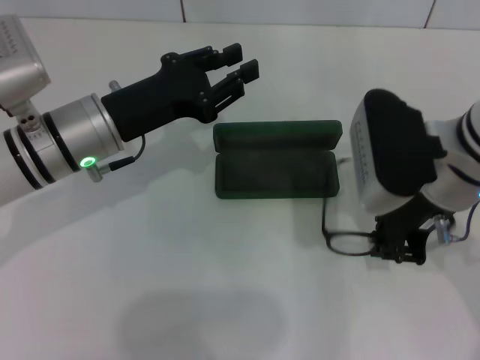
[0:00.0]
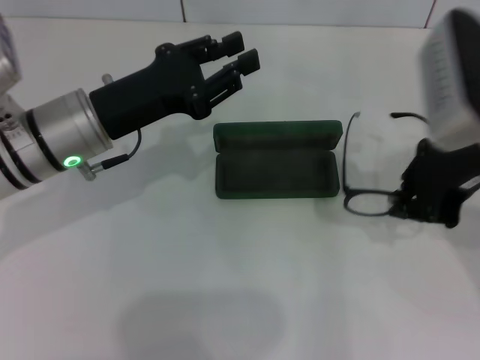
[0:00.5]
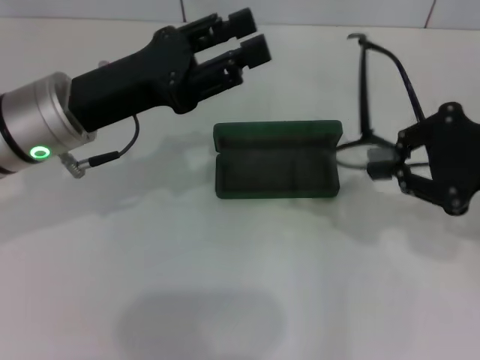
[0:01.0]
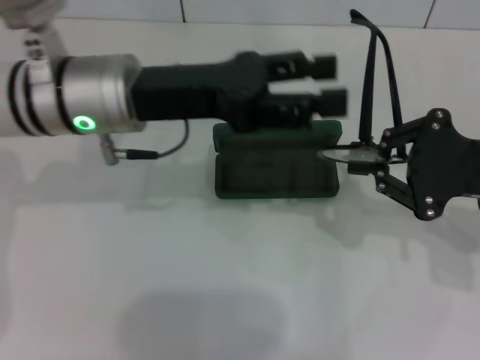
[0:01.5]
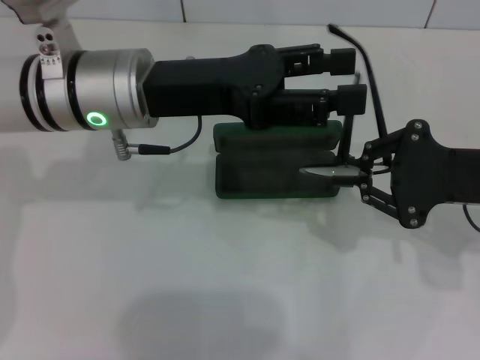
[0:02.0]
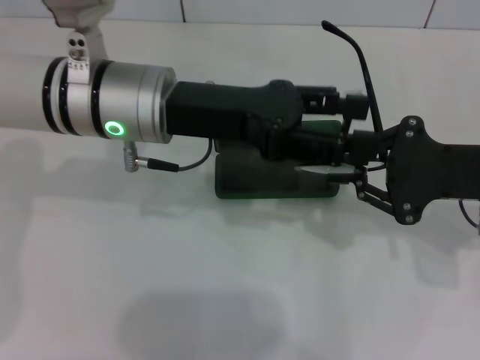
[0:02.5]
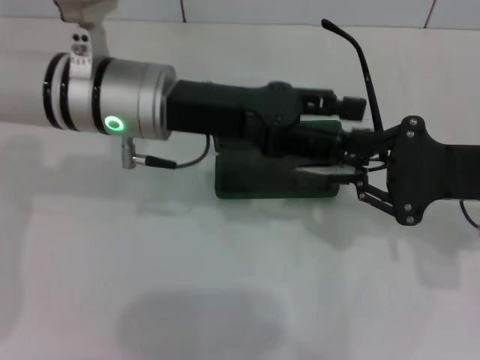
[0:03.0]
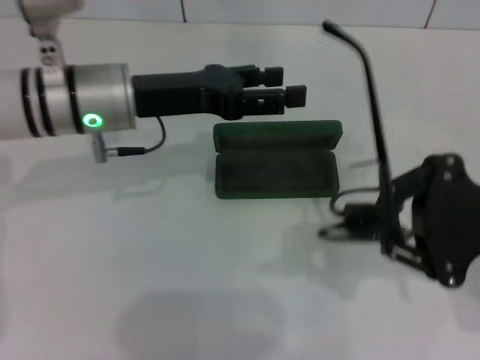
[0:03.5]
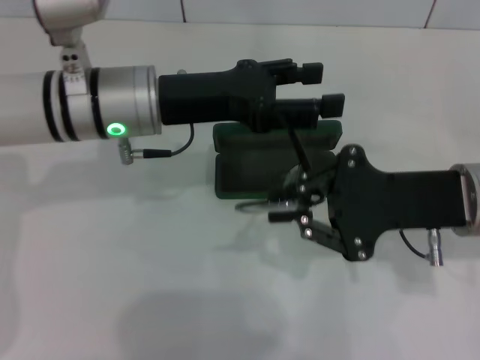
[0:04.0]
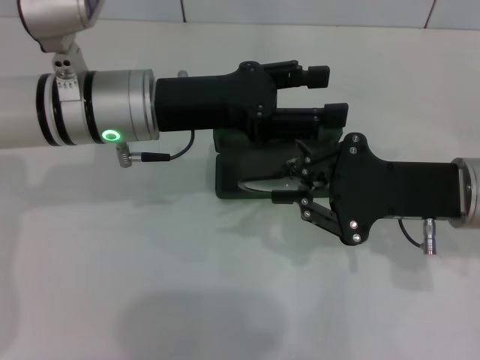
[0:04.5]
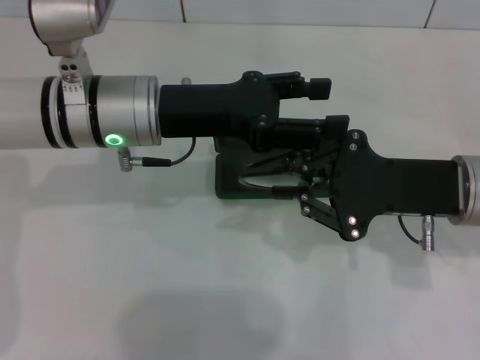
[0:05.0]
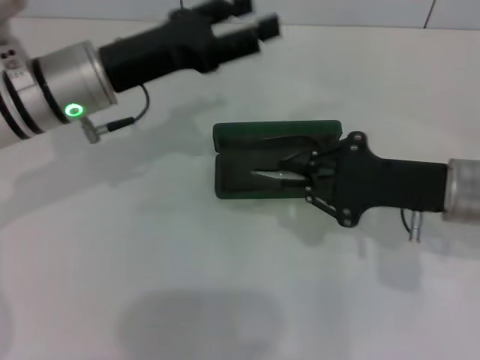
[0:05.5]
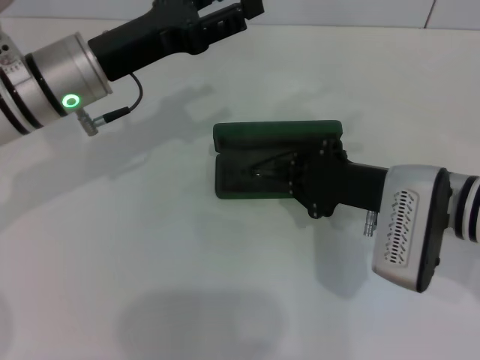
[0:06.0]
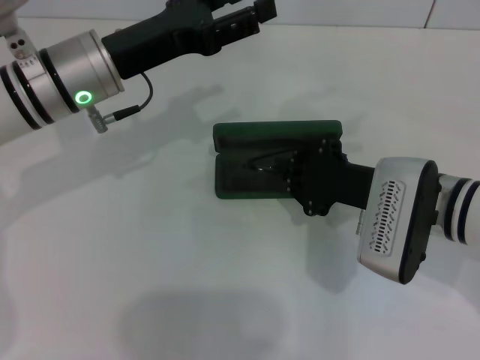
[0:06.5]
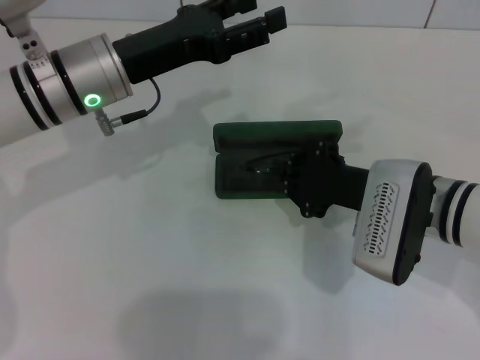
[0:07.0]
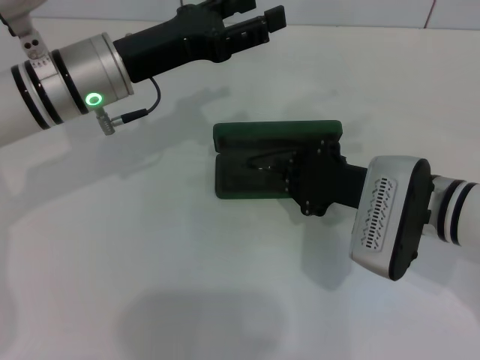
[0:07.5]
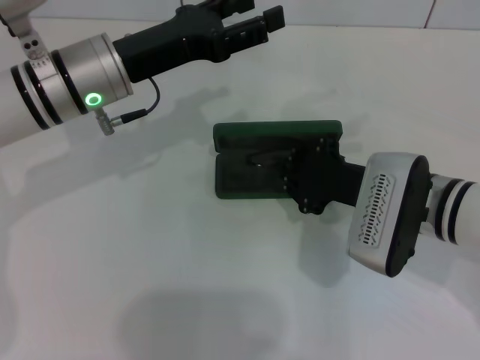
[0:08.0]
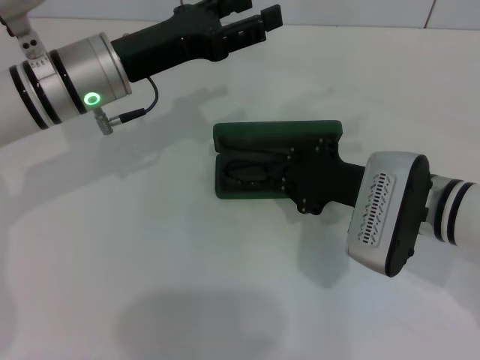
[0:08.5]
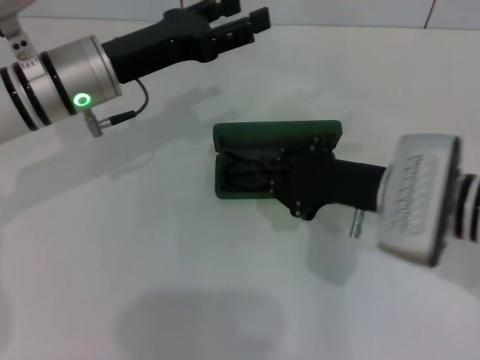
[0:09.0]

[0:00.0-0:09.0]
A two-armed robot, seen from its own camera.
Step, 0:00.5 to 0:05.0: Fold the frame with your left hand.
Step, 0:05.5 to 0:08.5: Put the glasses into the case with your right hand.
0:00.0 to 0:02.0: The left gripper goes roughly 5 cm upward, and opens its fingers; the right gripper goes roughly 10 cm to the right.
0:02.0 to 0:04.5: The right gripper goes approximately 5 cm to the left.
0:04.5 to 0:07.0: The right gripper ends up roughly 5 cm from where it was.
0:07.0 to 0:09.0: There are only small adjustments of the grippers.

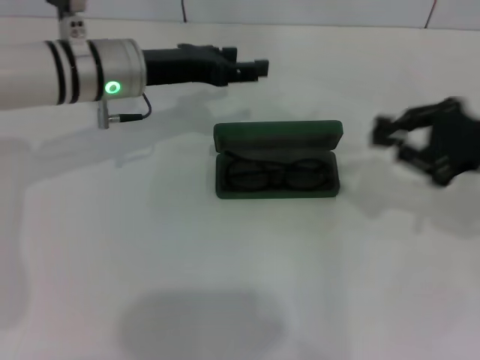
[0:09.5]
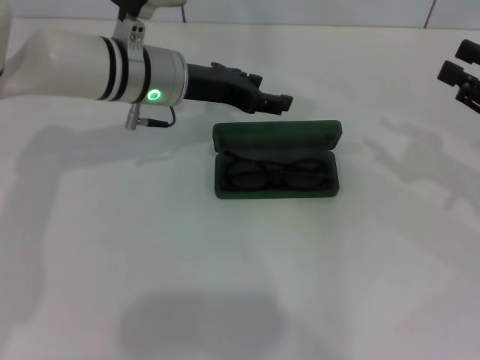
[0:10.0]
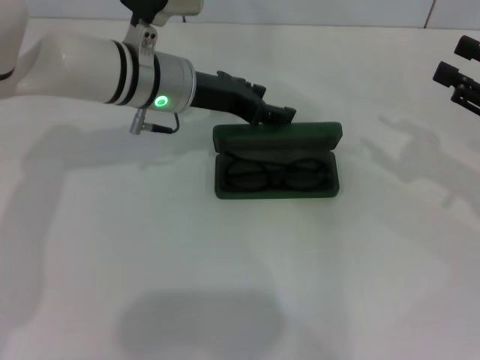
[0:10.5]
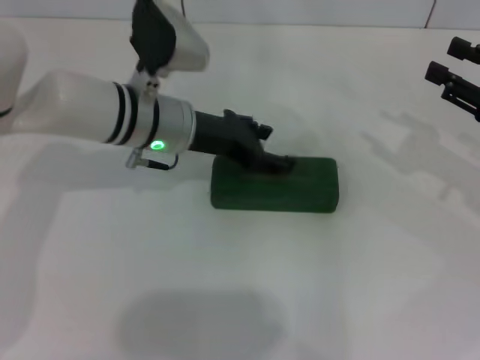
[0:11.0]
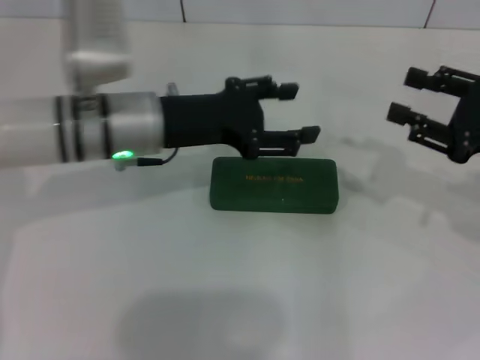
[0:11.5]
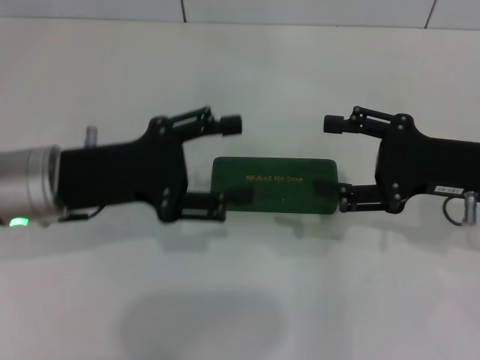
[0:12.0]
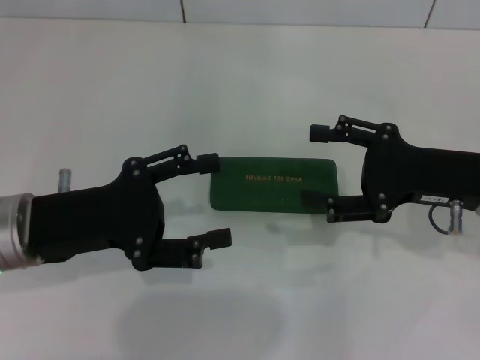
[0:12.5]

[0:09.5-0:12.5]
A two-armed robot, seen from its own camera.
Step, 0:09.5 to 0:11.0: Close the glasses case with your left hand.
0:09.5 to 0:11.0: The right gripper opens up. Meanwhile the left gripper ends up roughly 5 cm from where it was.
0:11.0 to 0:12.5: The left gripper travels backward and to the left by roughly 20 cm. The right gripper goes about 10 cm to the left.

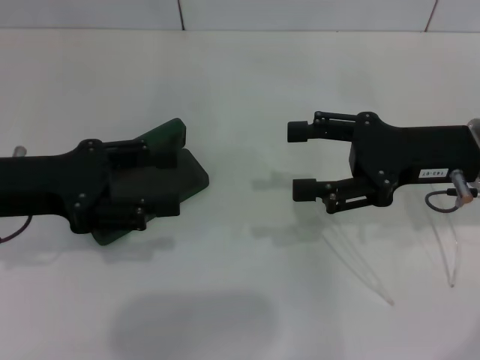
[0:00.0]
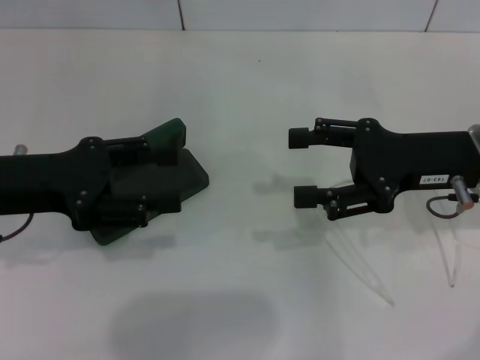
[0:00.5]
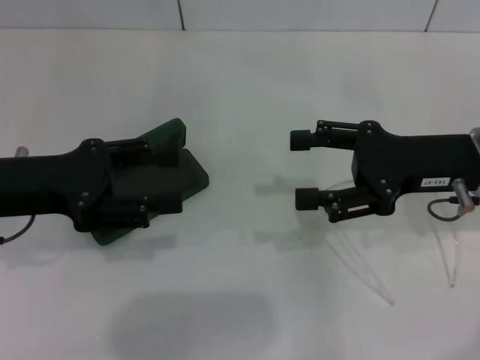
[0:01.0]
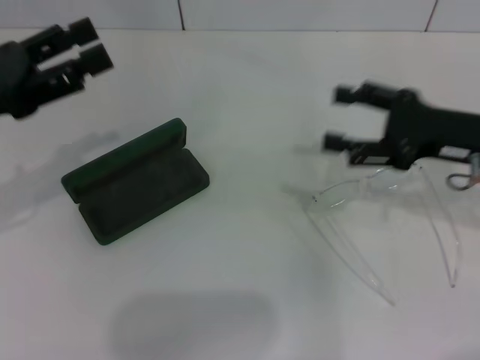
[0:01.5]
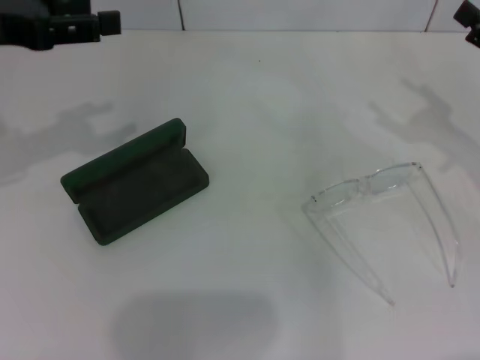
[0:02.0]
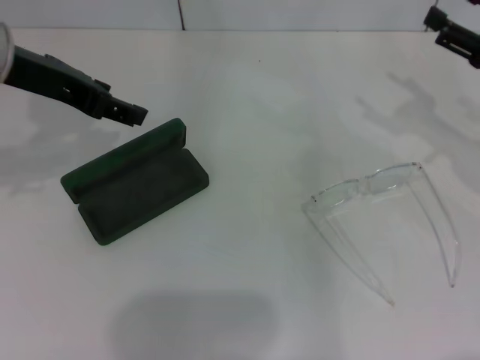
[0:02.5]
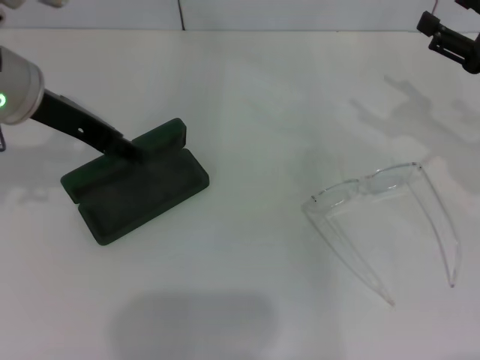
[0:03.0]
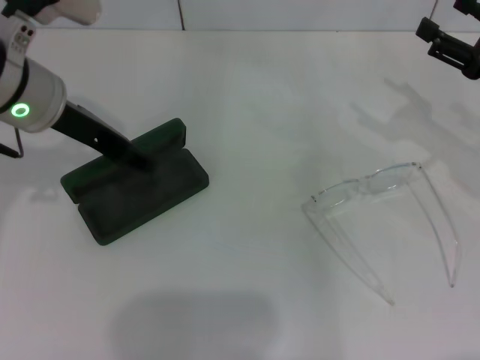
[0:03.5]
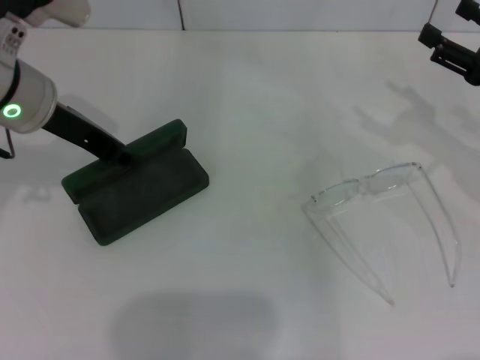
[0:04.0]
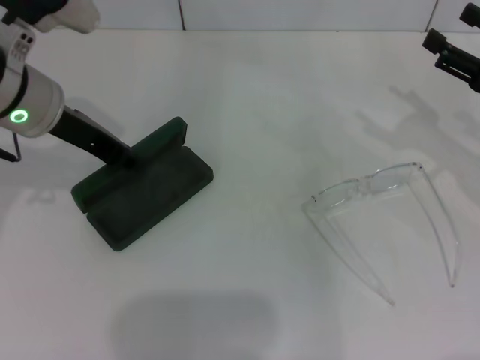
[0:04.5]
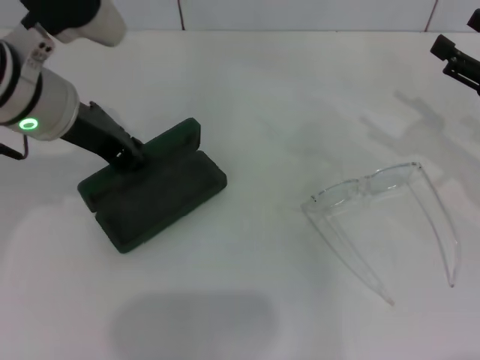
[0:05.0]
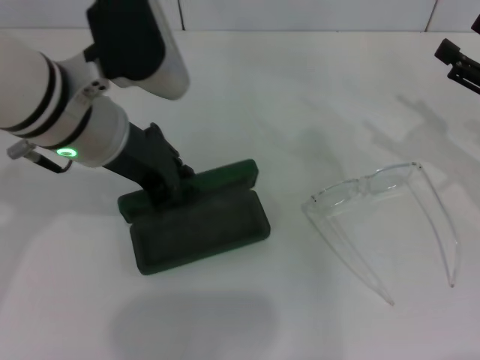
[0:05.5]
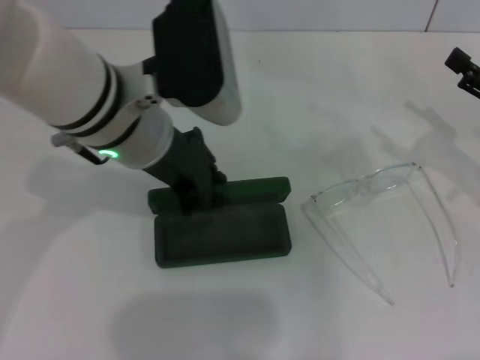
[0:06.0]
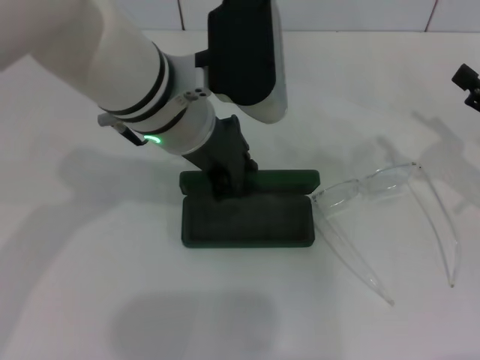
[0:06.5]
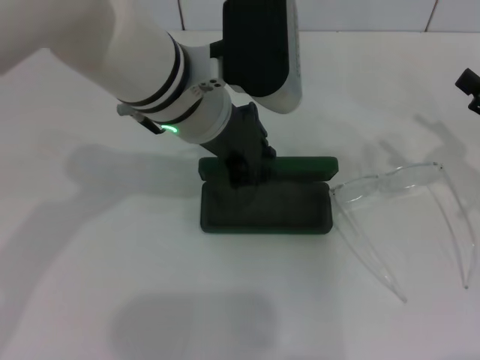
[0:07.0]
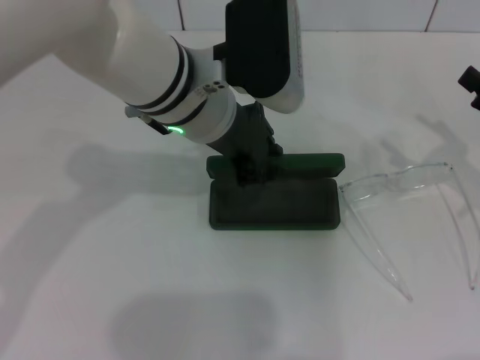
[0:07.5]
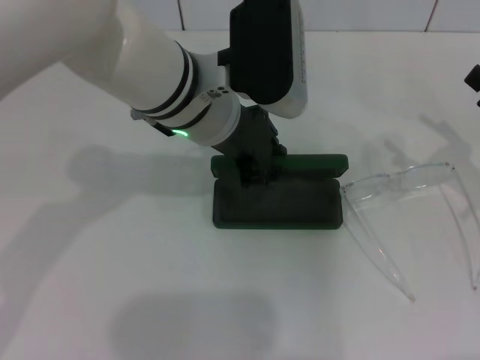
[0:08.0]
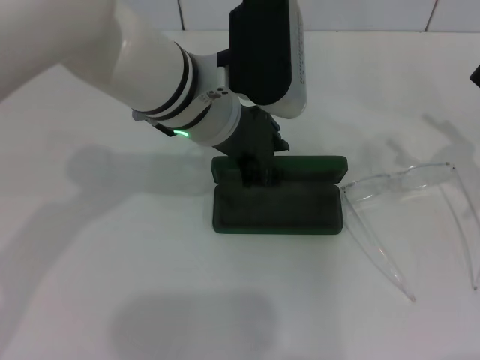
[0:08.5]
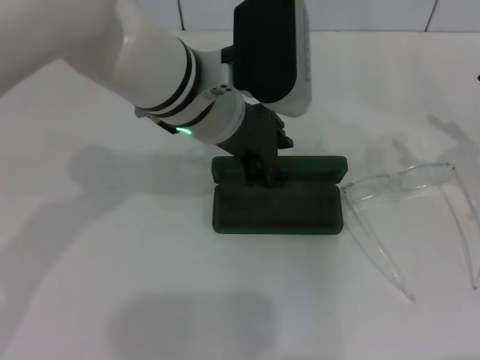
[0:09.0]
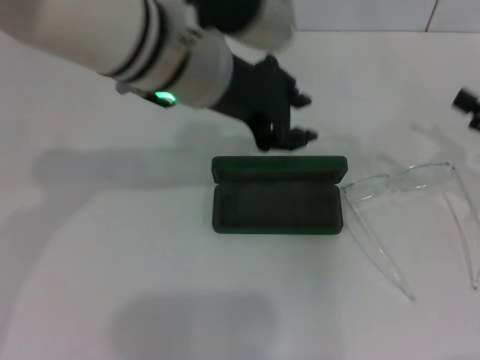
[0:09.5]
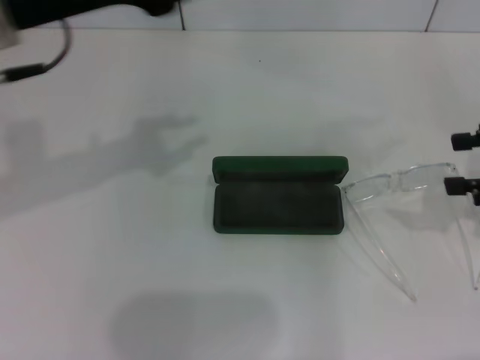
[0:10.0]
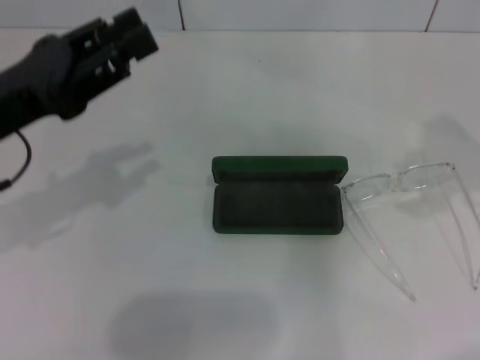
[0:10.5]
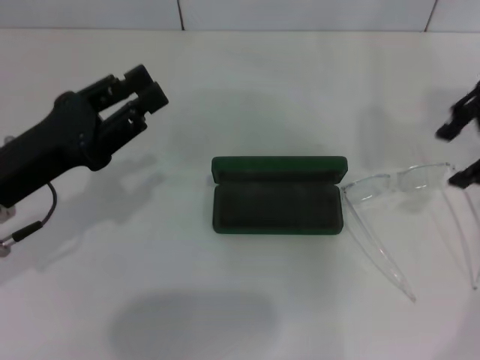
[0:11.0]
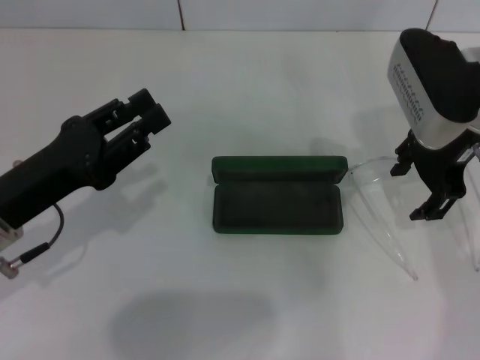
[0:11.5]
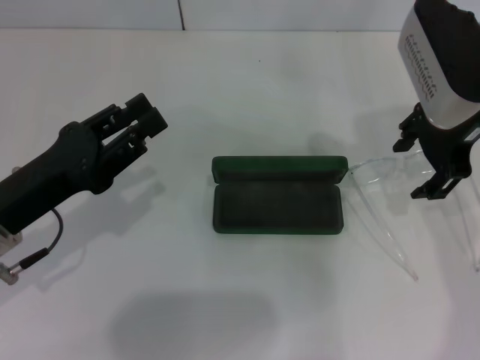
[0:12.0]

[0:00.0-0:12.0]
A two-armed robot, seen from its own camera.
Step, 0:00.0 to 0:04.0: Grab the glasses case with your left hand.
Step, 0:04.5 to 0:09.0: Place the glasses case in the center of the table with your left hand.
0:00.0 to 0:02.0: The left gripper is displaced upward and forward by roughly 10 cm. Meanwhile the right gripper is displaced to the right by some 10 cm.
0:02.0 to 0:04.0: The left gripper goes roughly 10 cm to the right and downward.
0:04.0 to 0:06.0: The left gripper shifts approximately 10 cm to the right, and closes up.
0:06.0 to 0:08.0: The left gripper goes about 5 cm to the right.
0:08.0 to 0:10.0: The left gripper moves to the left and upward, about 15 cm. Meanwhile the right gripper heads upward, covering some 5 cm.
0:10.0 to 0:12.0: The left gripper travels downward by some 20 cm. The right gripper heads to the left and forward, covering about 20 cm.

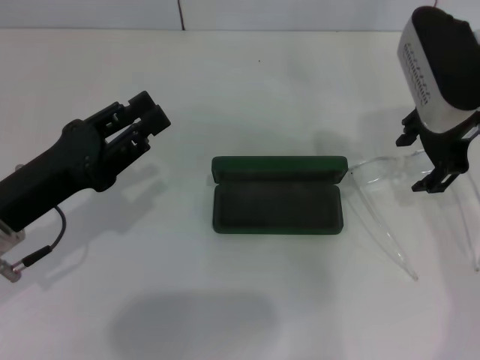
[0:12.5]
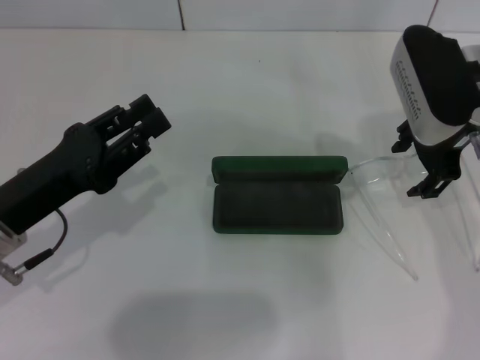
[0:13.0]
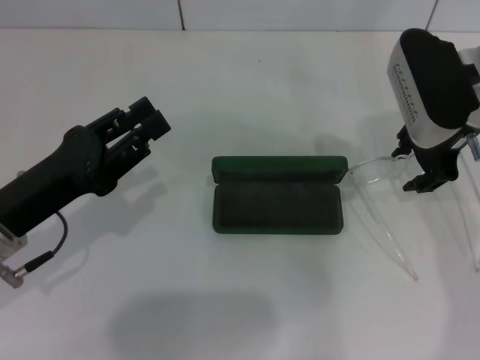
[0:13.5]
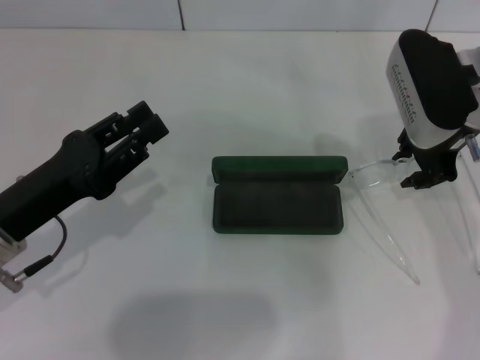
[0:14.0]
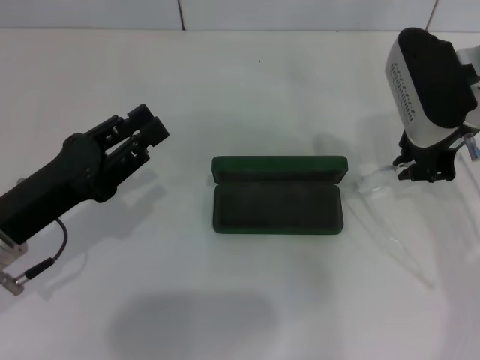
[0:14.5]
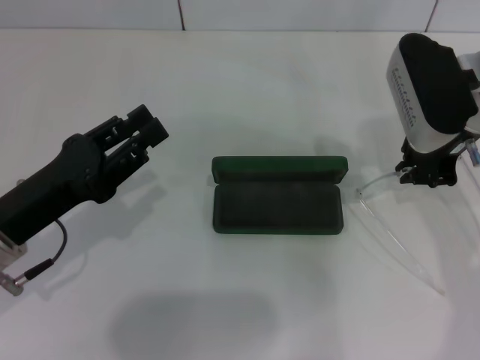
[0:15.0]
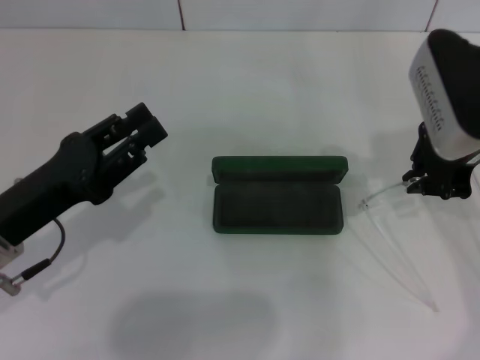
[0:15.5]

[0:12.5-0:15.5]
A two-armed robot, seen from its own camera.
Step, 0:12.5 to 0:14.5: Grab the eyeglass frame with your right hand.
0:12.5 to 0:14.0: The right gripper closes.
0:14.0 to 0:15.5: The grippers stay close to where they were, moving slightly.
